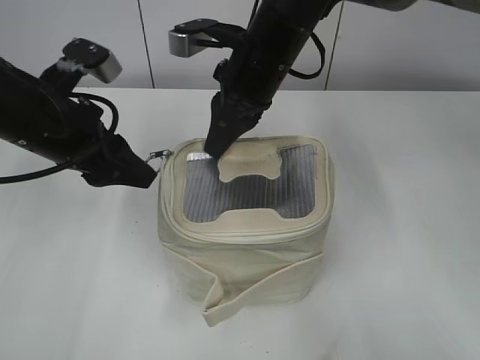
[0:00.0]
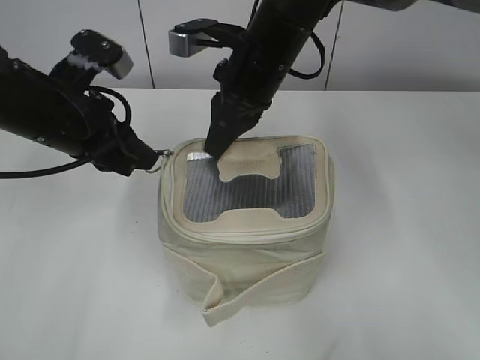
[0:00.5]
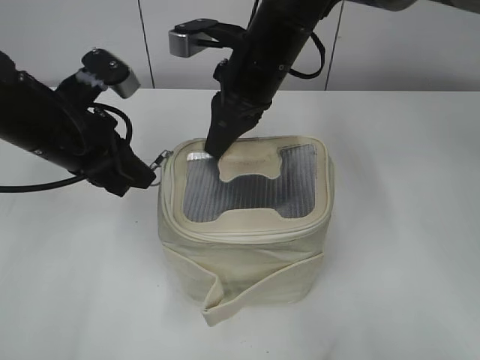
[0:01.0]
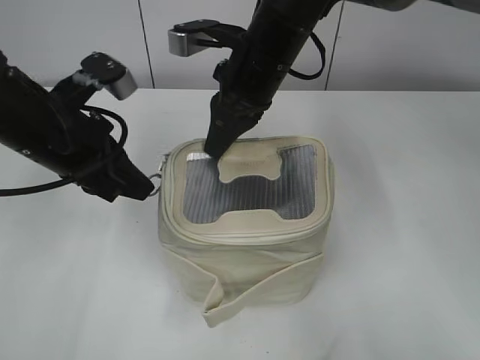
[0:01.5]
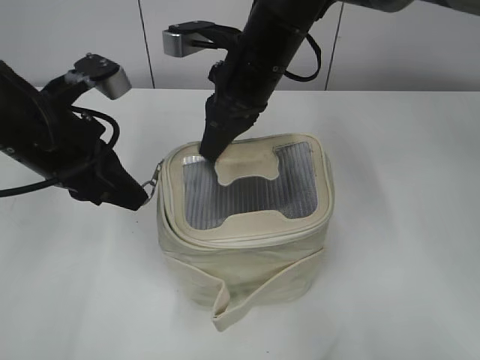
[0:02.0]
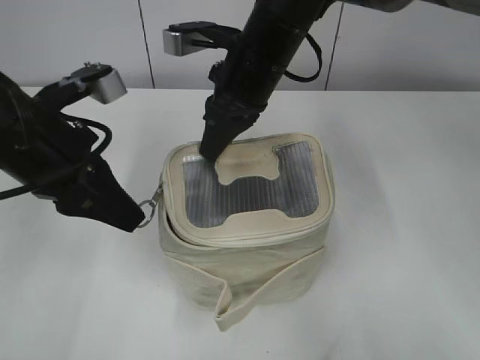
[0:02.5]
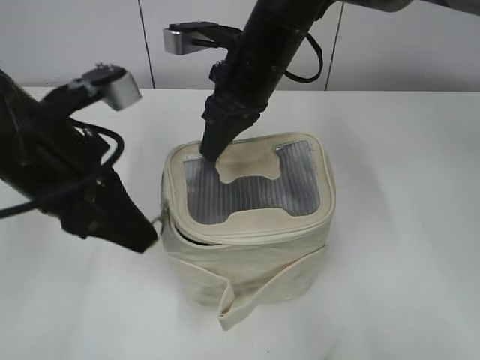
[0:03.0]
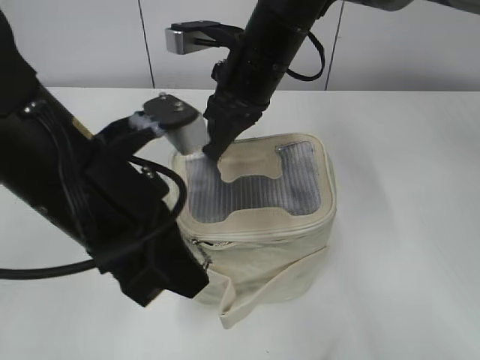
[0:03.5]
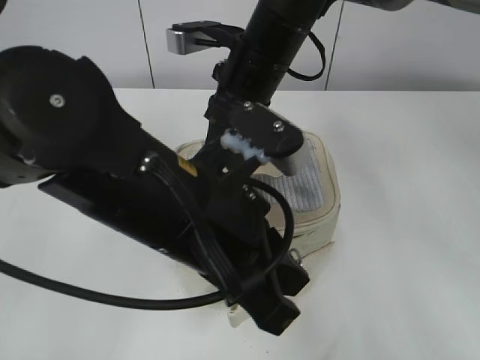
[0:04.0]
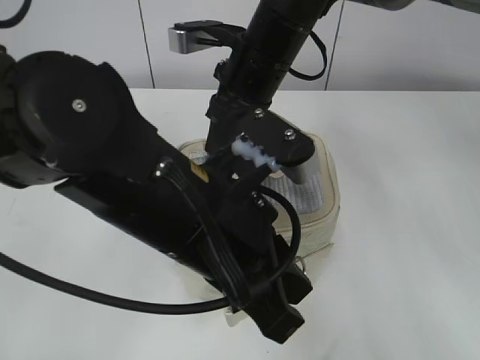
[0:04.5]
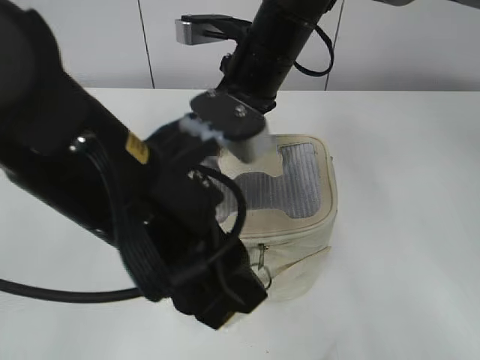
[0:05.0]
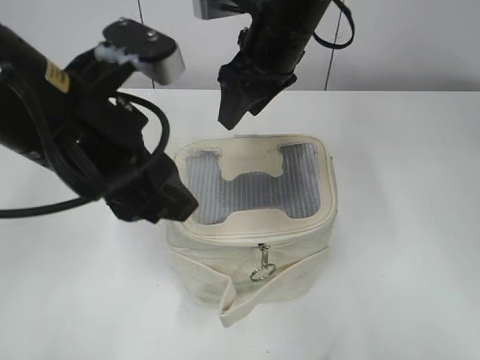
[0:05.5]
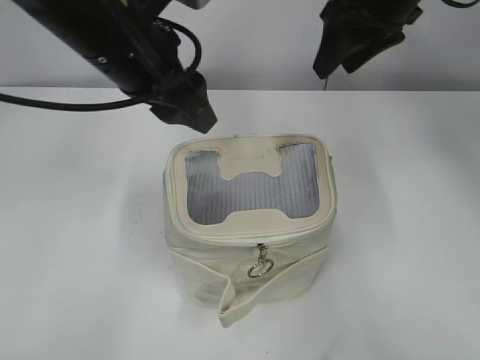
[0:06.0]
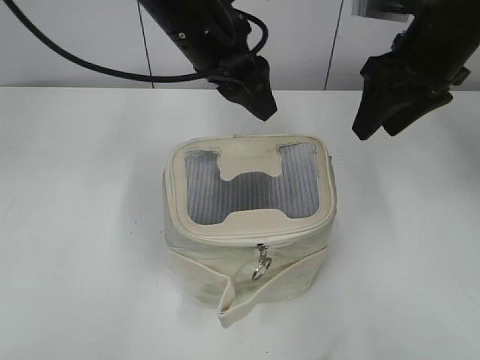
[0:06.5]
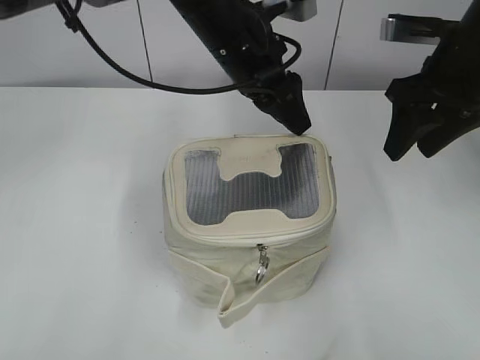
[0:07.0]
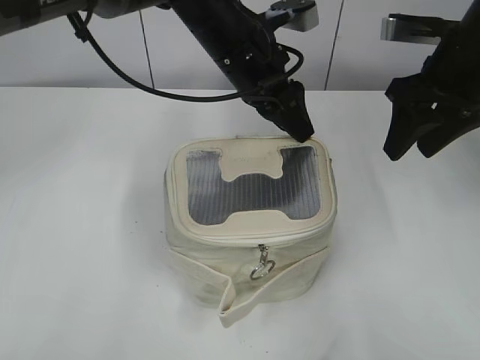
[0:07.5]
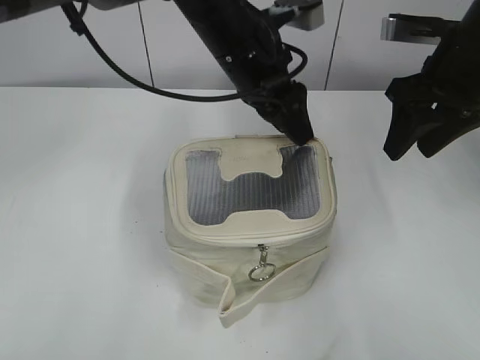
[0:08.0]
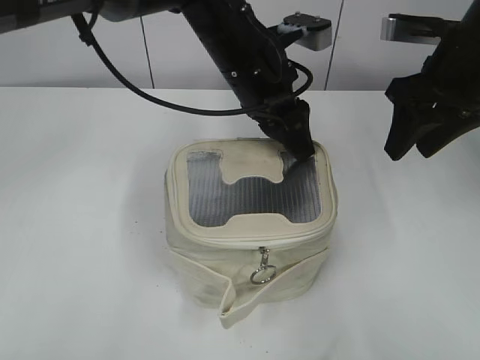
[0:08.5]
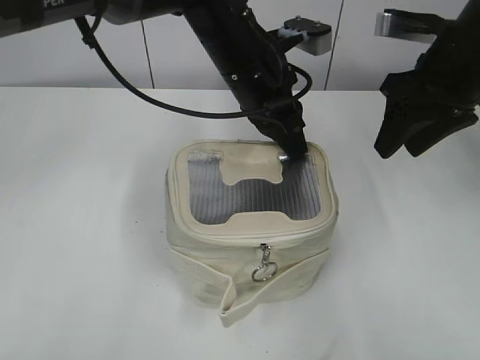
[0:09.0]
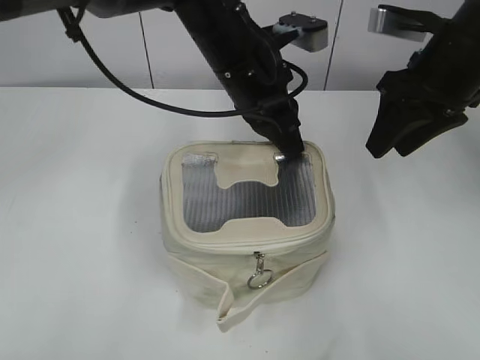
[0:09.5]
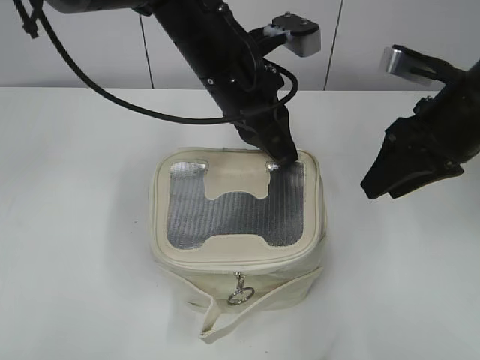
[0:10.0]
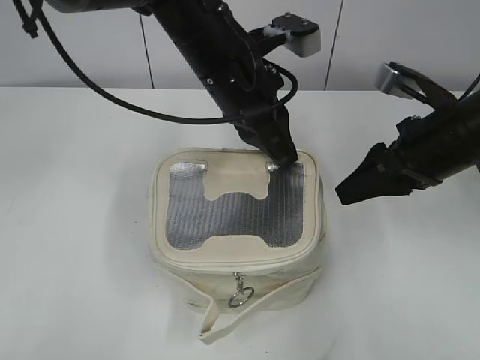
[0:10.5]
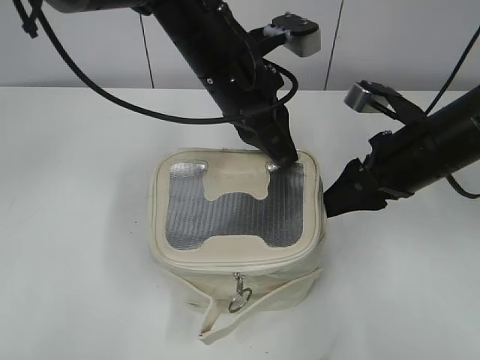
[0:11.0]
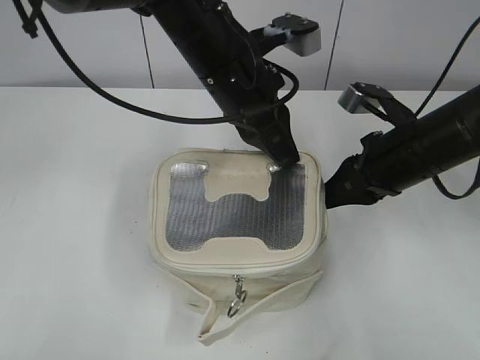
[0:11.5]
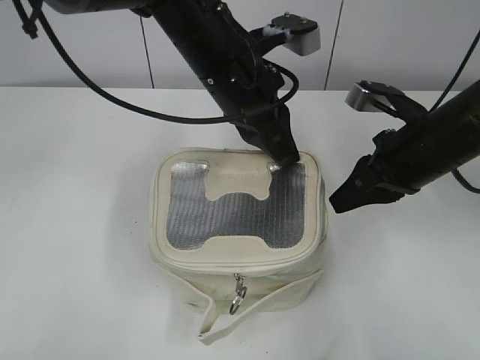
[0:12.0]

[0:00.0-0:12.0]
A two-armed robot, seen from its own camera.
Step, 0:00.0 to 0:04.5: Zip up the bag with your left hand.
0:00.0 to 0:02.0: The left gripper closes up.
0:02.0 to 0:04.0: The left gripper shifts roughly 15 cm to the right and backward.
0:04.0 to 0:06.0: The right gripper travels to the right and upward by some 15 cm, and opens its fingers. Meanwhile the left gripper goes approximately 15 cm forward, upward and to the left, and opens.
0:06.0 to 0:08.0: The left gripper moves to the right and forward, some 15 cm, while the right gripper shifts about 10 cm to the right and backward.
0:08.0 to 0:10.0: The right gripper ends up some 5 cm from where it was. The left gripper closes up.
0:10.0 to 0:12.0: The right gripper shifts roughly 5 cm downward, and closes its fingers.

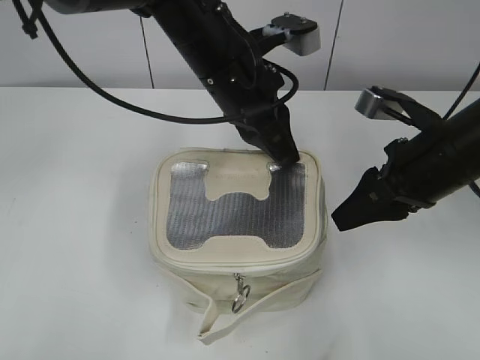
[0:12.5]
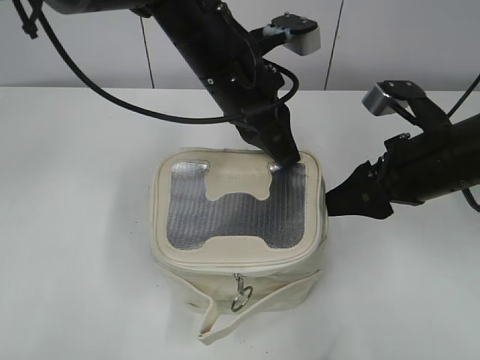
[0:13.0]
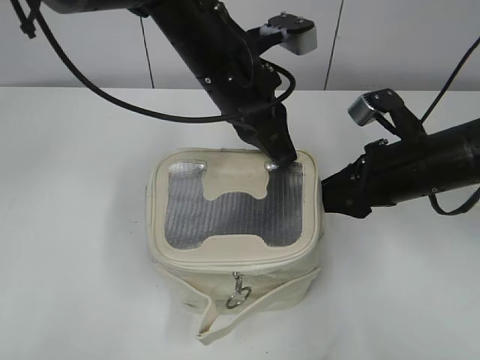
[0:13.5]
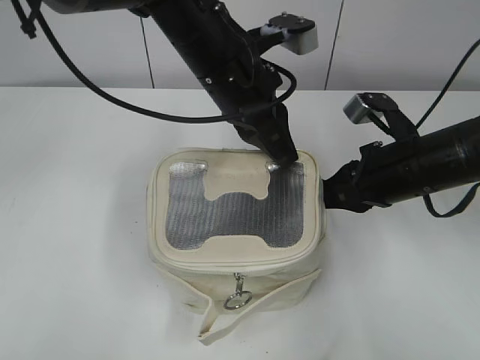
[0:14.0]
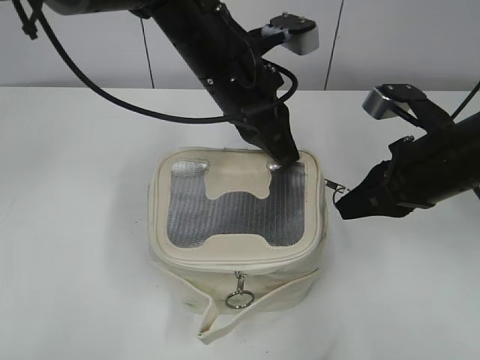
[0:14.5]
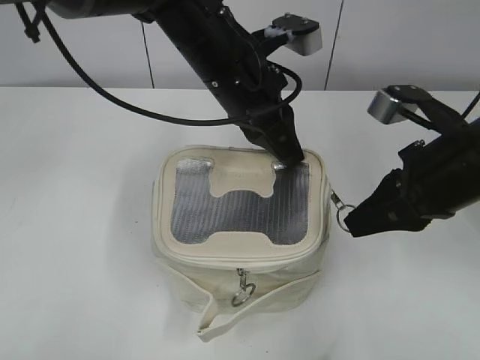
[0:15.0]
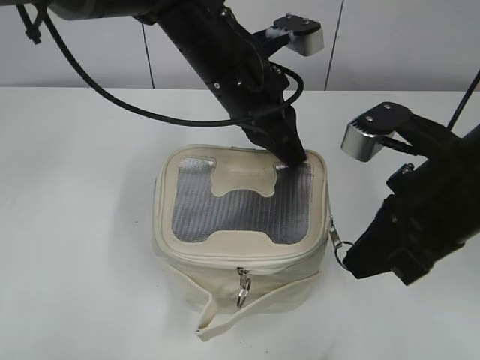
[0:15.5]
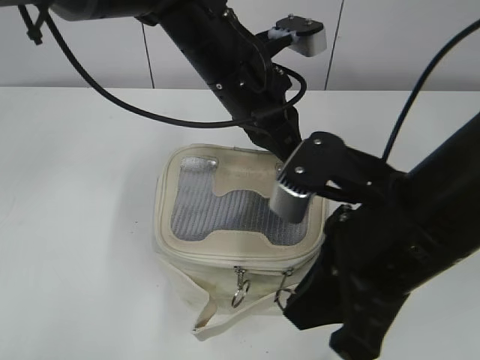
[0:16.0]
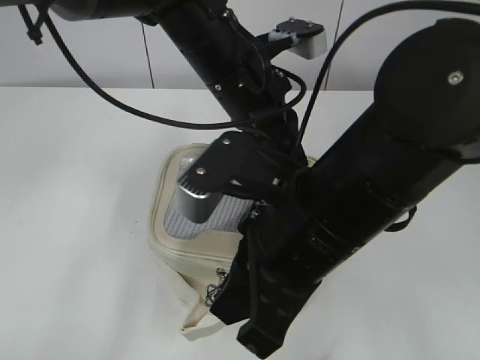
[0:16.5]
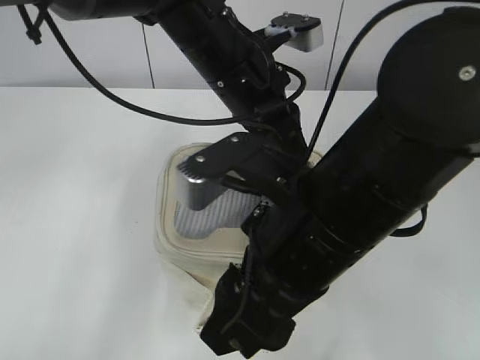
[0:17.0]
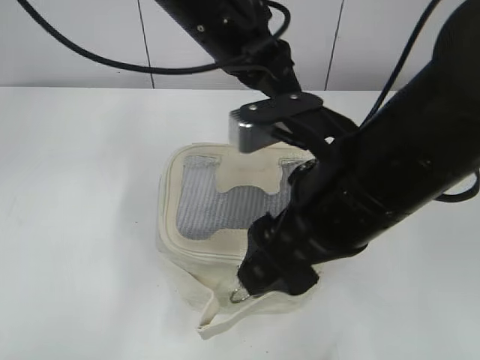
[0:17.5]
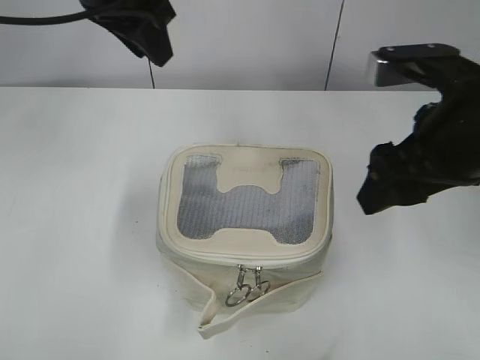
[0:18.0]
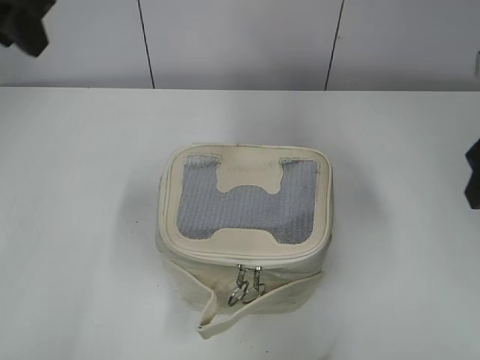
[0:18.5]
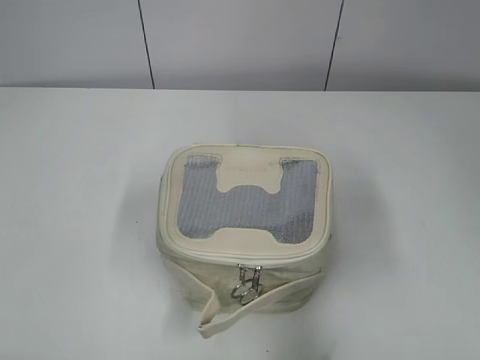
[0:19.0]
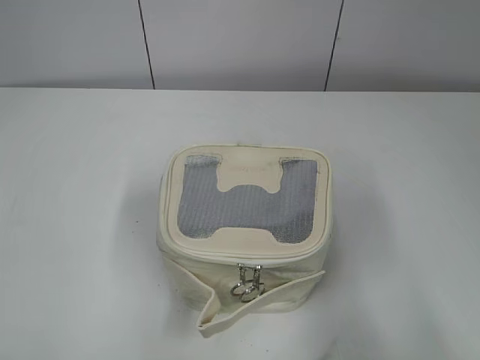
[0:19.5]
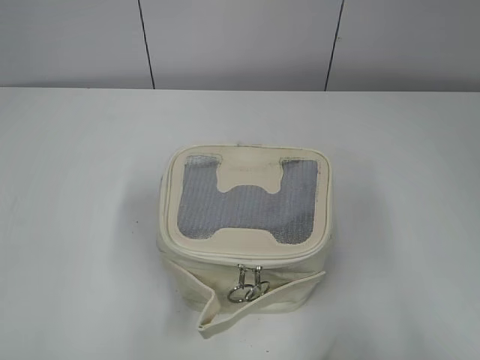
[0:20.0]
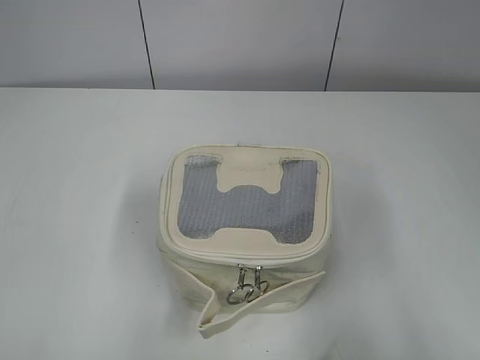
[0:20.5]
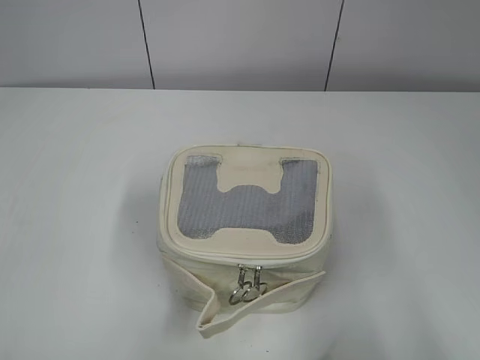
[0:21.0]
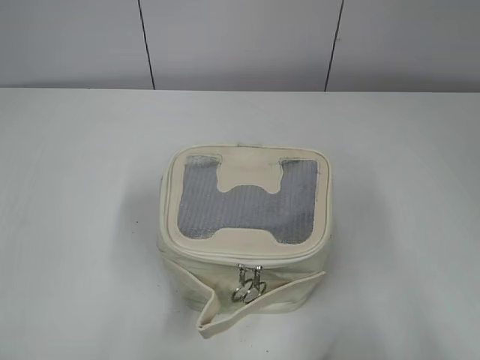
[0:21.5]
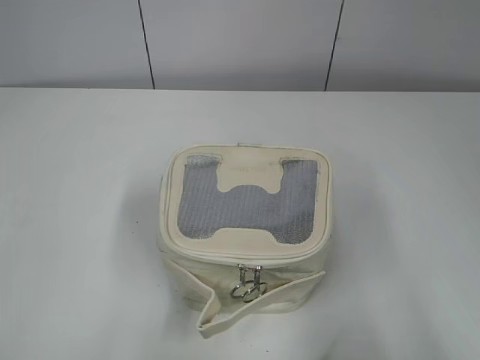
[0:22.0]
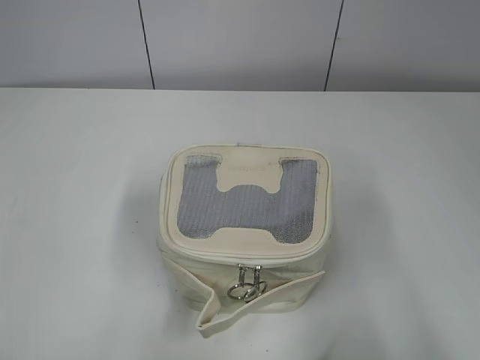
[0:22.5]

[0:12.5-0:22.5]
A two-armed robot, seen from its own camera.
Step, 0:12.5 to 0:16.5: Zip up the bag with your right hand.
Step, 0:17.0 to 0:17.5: Hold the bag with your left hand.
0:12.5 to 0:14.5: The right gripper closes its fingers.
0:14.5 to 0:16.5: The right gripper is displaced to the left and backward by approximately 20 cm.
0:16.5 to 0:18.5: The left gripper shifts roughly 25 cm to the left and upward, and opens its fingers. The right gripper travels to the right by about 20 cm, and opens up.
0:18.5 to 0:20.5: The grippers both shift backward by roughly 30 cm.
